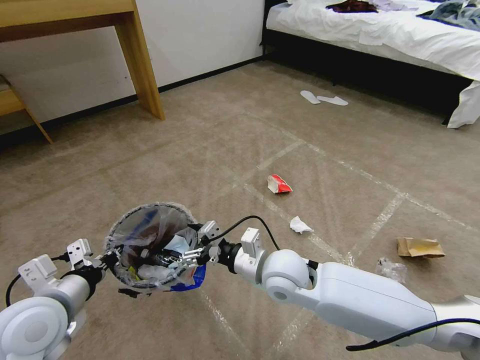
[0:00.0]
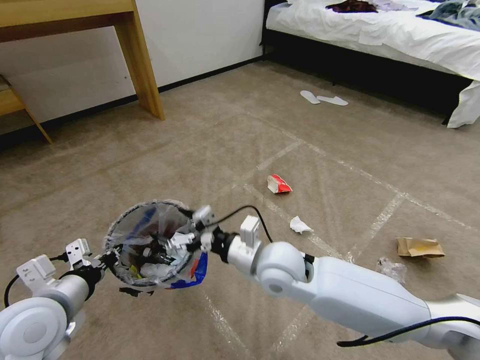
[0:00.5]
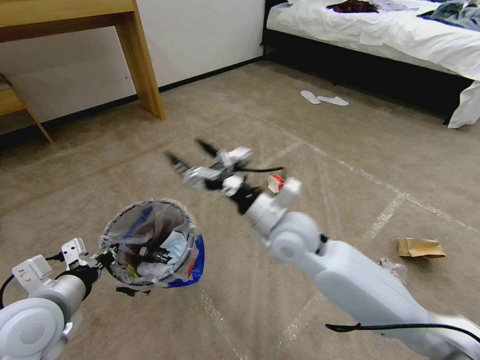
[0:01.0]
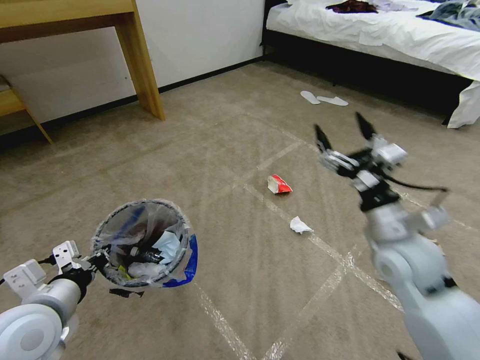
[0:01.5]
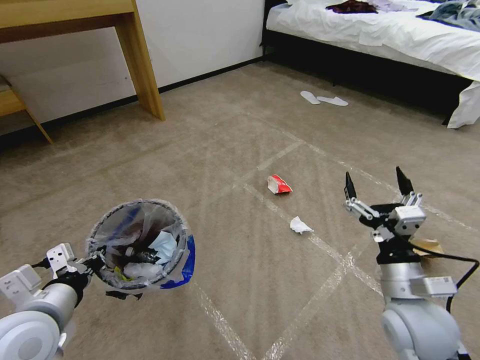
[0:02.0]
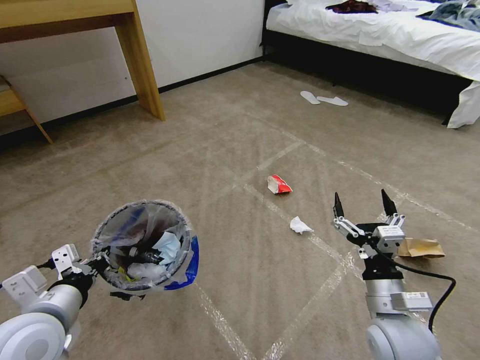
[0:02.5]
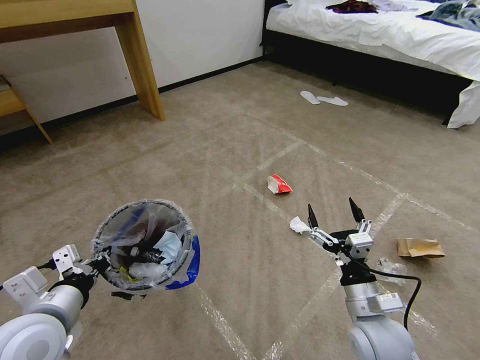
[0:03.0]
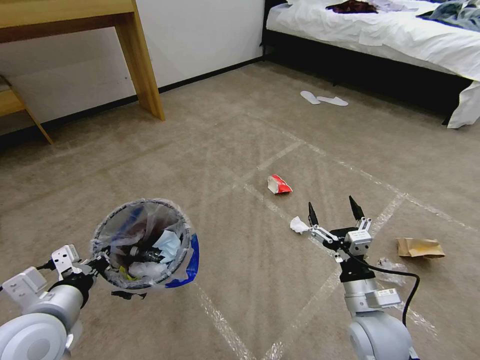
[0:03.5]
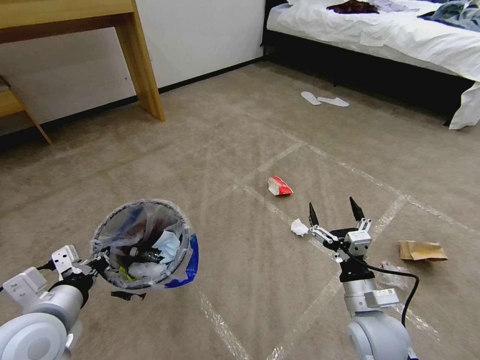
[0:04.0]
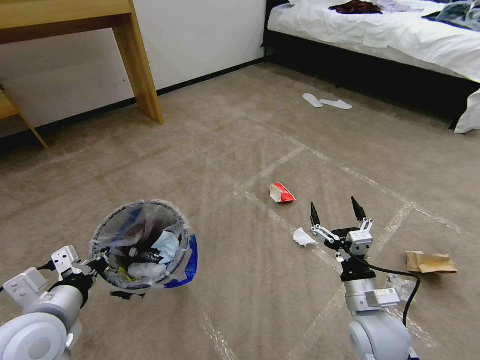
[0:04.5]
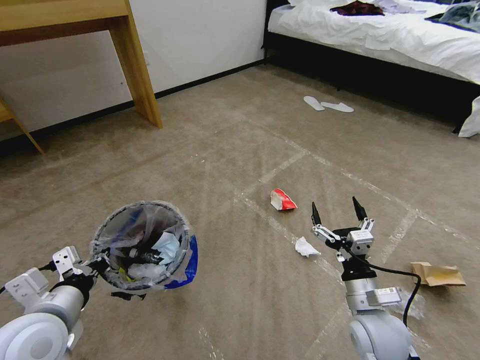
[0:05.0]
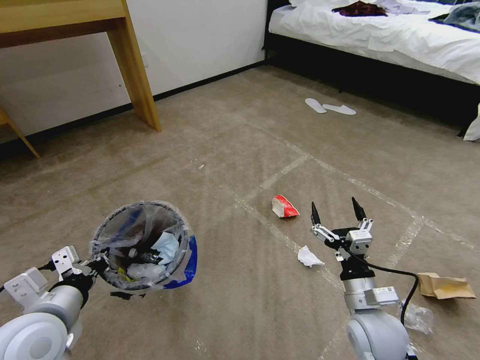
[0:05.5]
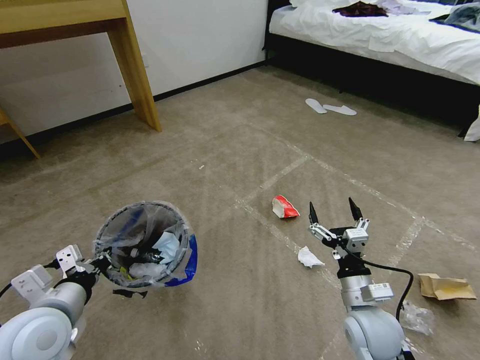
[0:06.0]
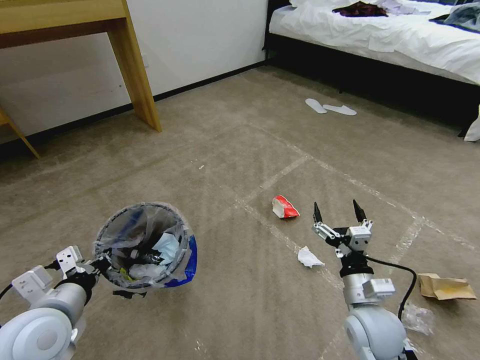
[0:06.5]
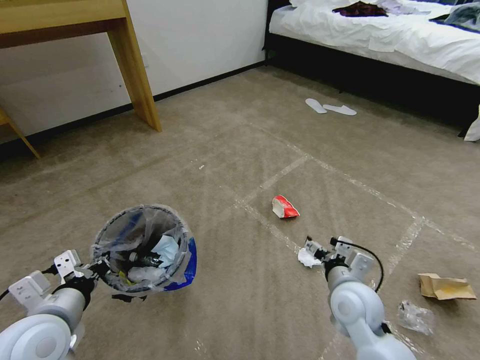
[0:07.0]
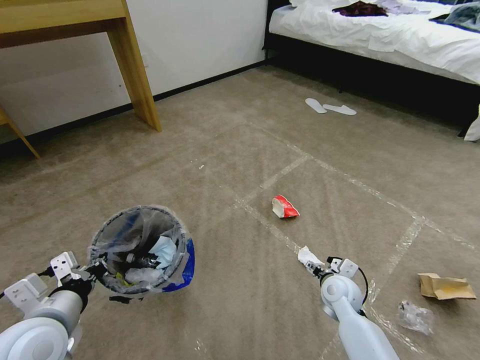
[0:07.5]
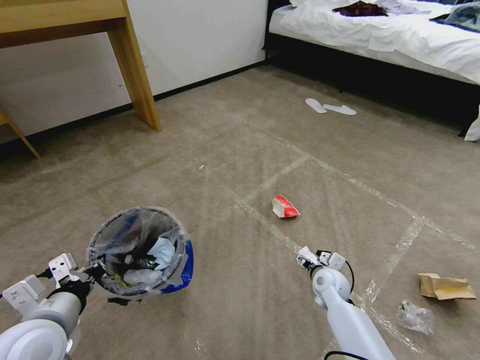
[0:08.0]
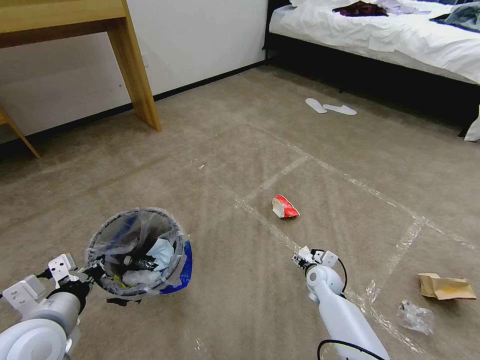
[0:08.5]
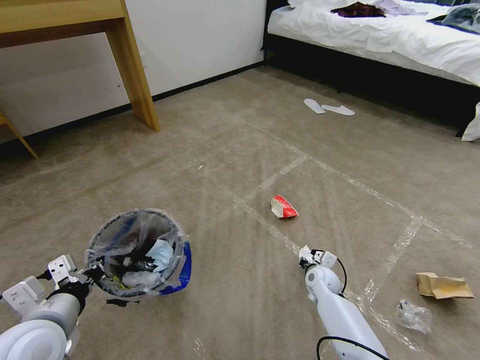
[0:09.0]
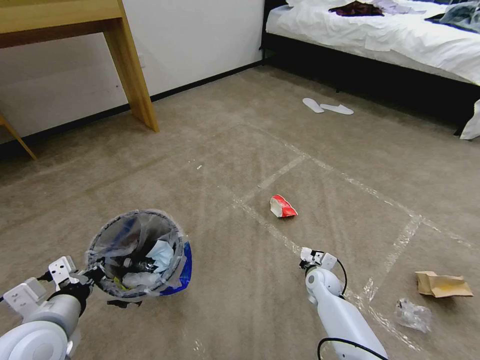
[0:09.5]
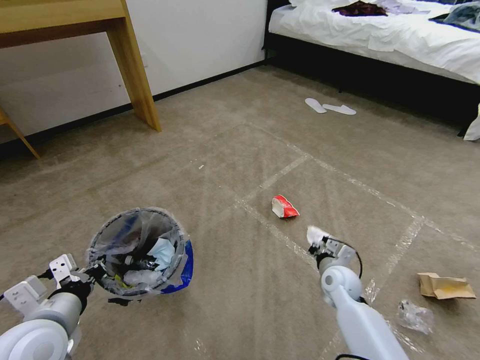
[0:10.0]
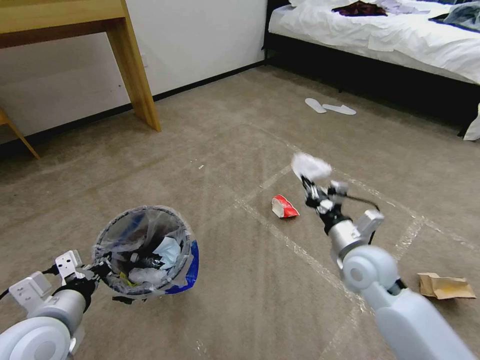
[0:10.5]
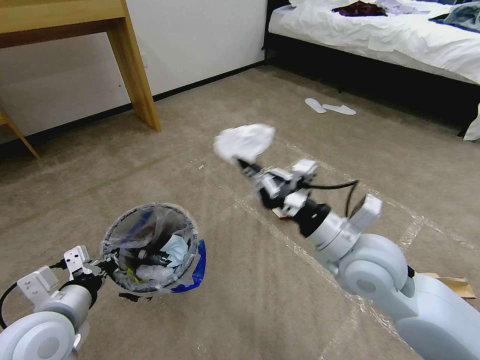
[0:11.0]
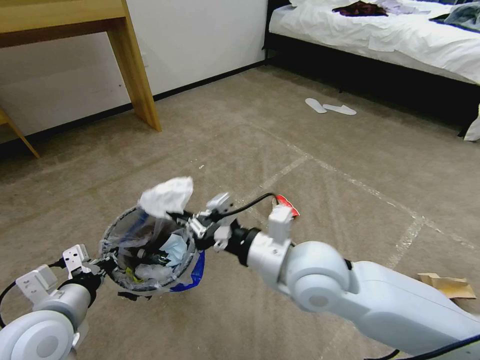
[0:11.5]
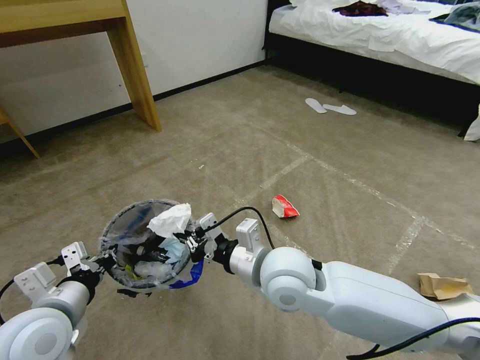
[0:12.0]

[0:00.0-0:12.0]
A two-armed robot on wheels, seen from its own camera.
Task of the whole recording: Pick up the trash bin and place the garbage on the floor into it.
0:00.0 to 0:02.0: The right gripper shifts roughly 25 cm to the right and backward.
0:02.0 to 0:04.0: The right gripper is displaced downward by about 10 cm.
0:06.0 to 0:08.0: The right gripper travels forward and downward by some 20 cm.
0:08.0 to 0:10.0: The right gripper closes up.
0:10.0 to 0:12.0: The right gripper heads upward and to the left, covering some 30 cm.

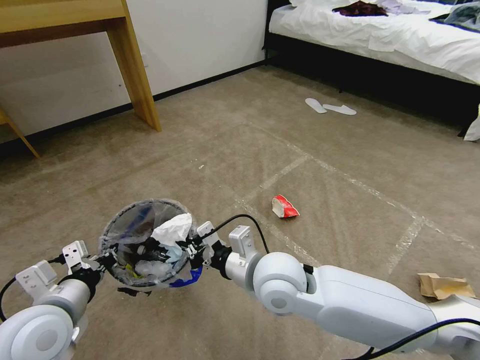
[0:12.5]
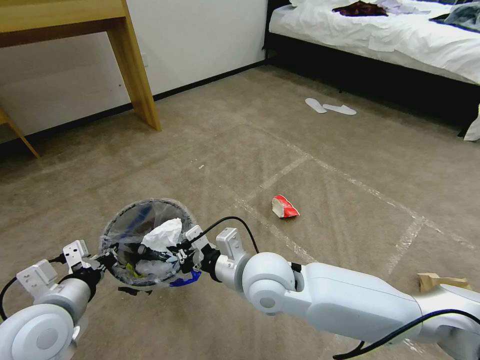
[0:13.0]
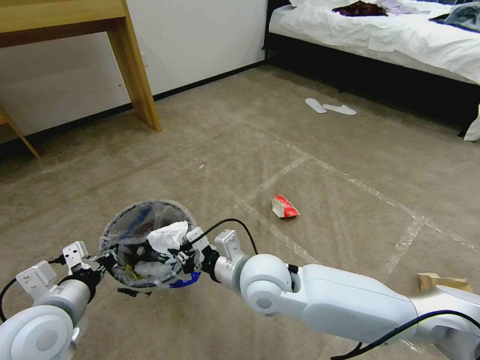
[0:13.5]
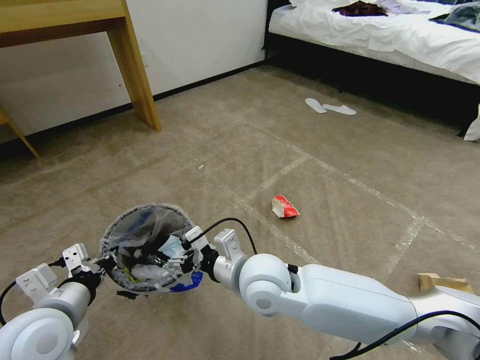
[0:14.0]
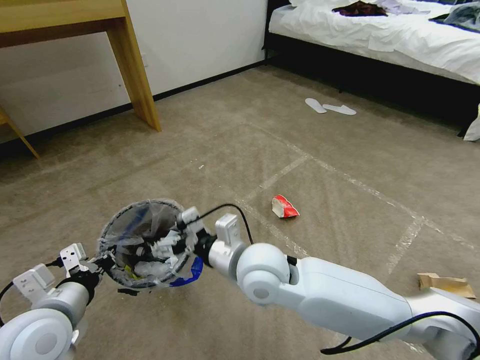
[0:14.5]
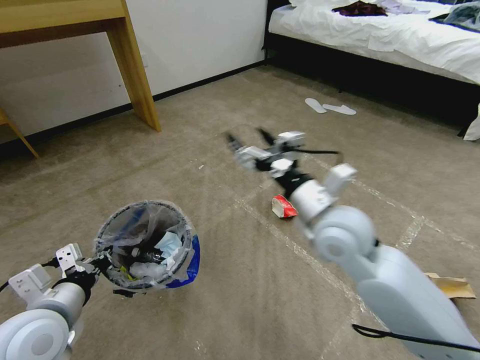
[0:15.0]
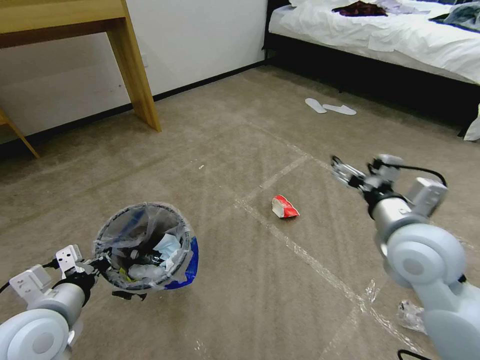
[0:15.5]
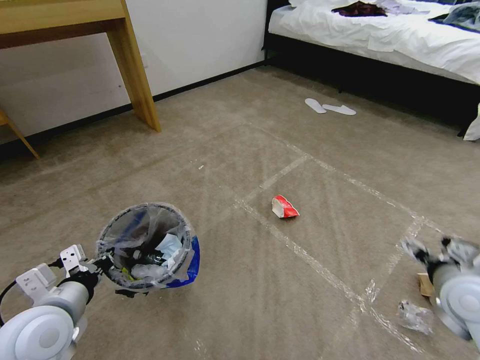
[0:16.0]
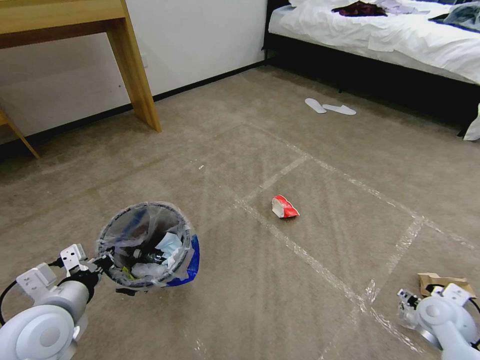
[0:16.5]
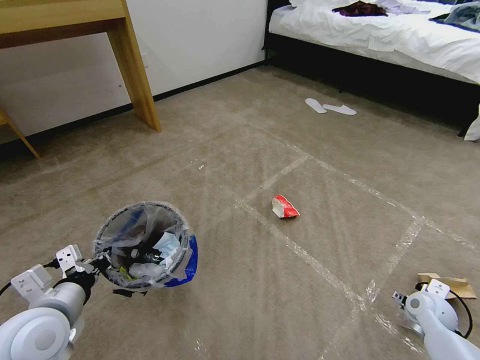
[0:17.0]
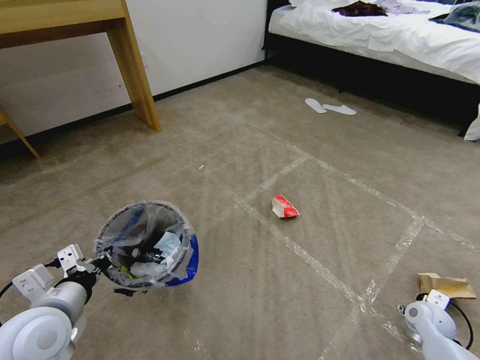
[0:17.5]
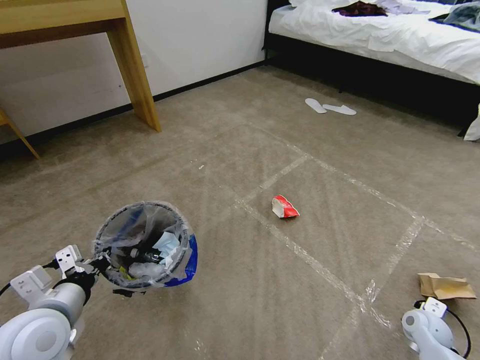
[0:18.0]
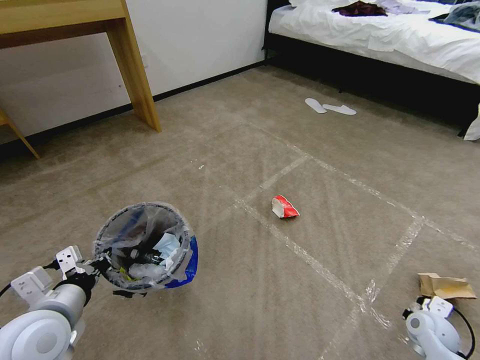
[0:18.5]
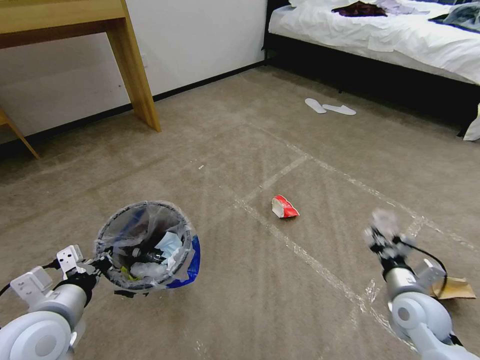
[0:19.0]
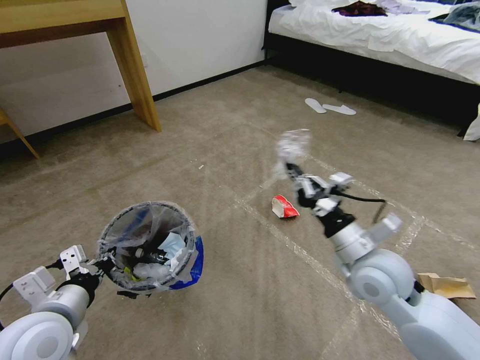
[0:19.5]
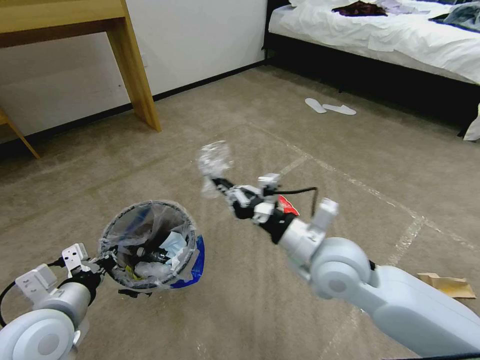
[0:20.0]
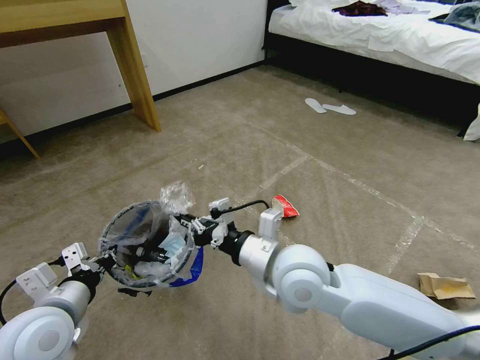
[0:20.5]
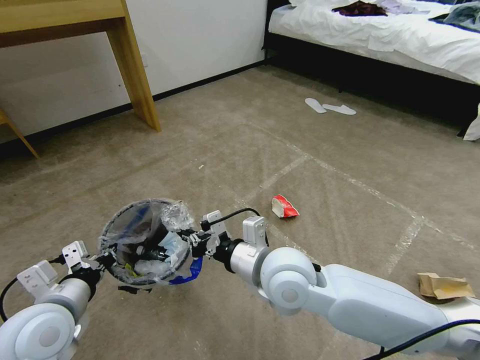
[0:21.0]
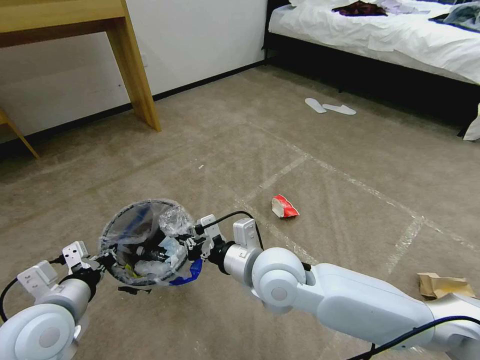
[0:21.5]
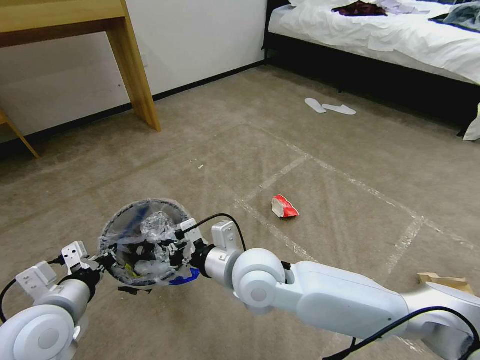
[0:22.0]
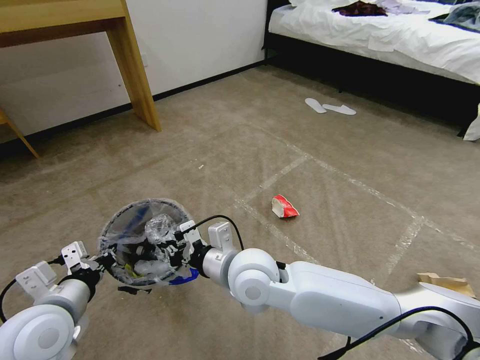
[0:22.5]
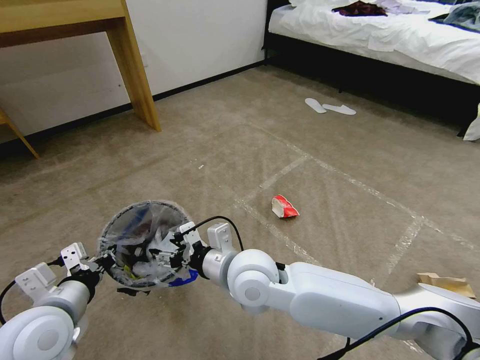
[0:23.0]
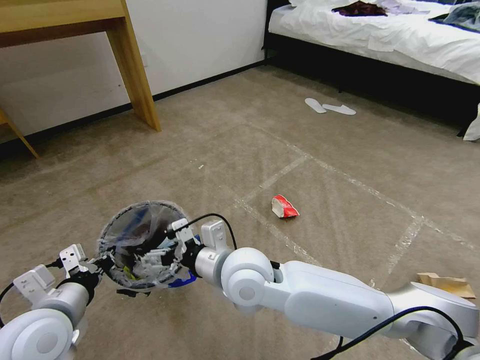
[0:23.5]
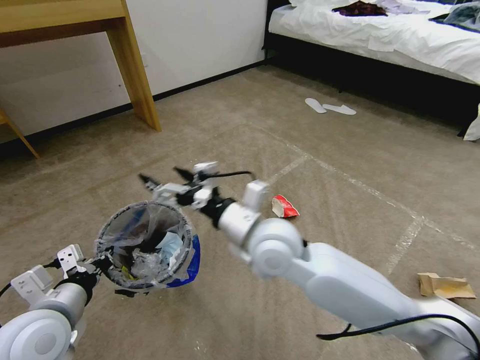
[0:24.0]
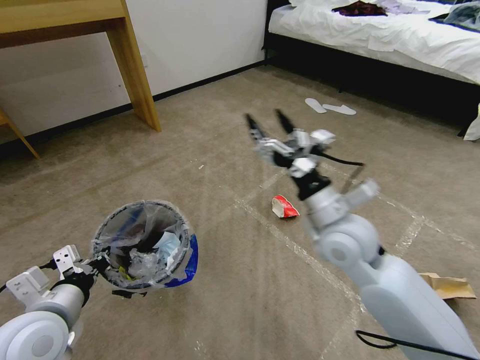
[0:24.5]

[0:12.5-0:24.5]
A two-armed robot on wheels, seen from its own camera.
Task of the whole recording: Pick up the trash bin and place the garbage on the floor into it.
0:12.5 to 0:14.5: The right gripper opens its fingers.
0:14.5 to 0:16.5: The right gripper moves to the right, some 40 cm.
0:16.5 to 0:18.5: The right gripper travels downward by approximately 10 cm, and closes up.
0:18.5 to 0:20.5: The right gripper shifts roughly 50 cm to the left and upward.
0:20.5 to 0:22.5: The right gripper is displaced to the left by roughly 10 cm.
0:22.5 to 0:24.5: The right gripper shifts approximately 15 cm to the right, and opens.

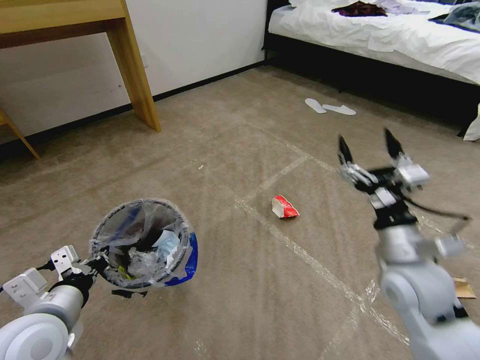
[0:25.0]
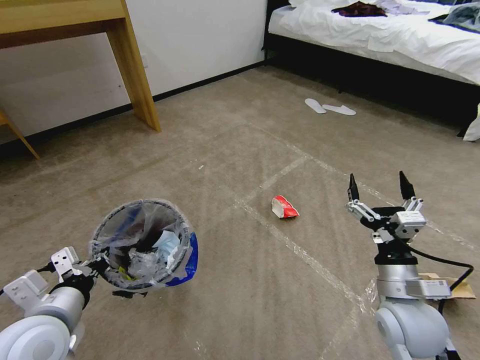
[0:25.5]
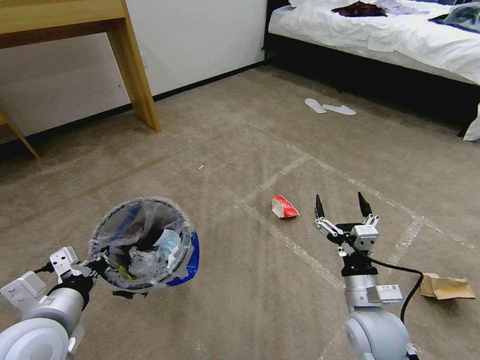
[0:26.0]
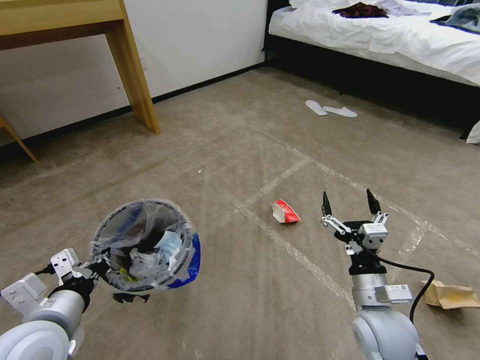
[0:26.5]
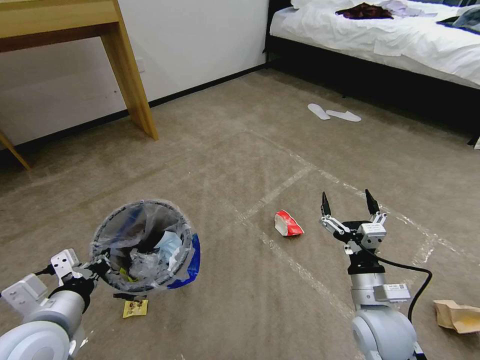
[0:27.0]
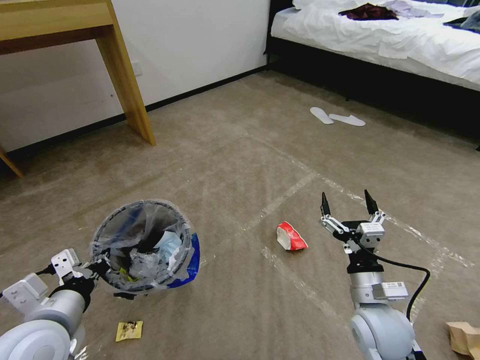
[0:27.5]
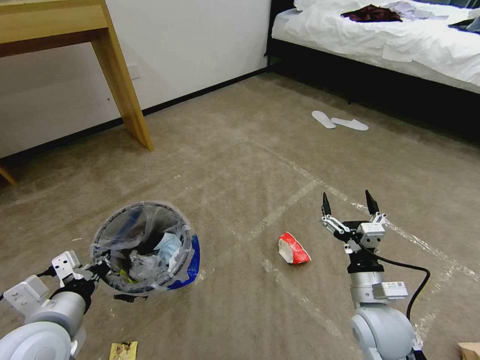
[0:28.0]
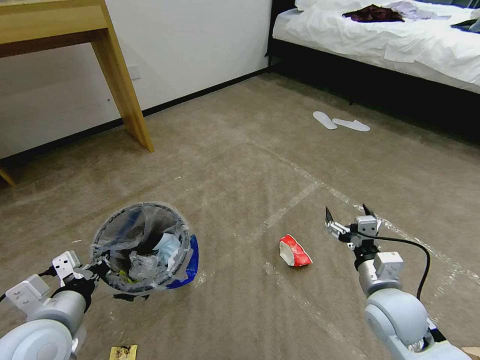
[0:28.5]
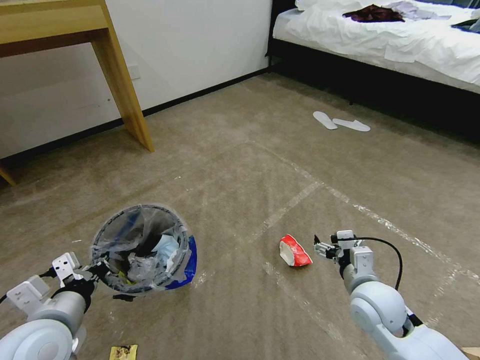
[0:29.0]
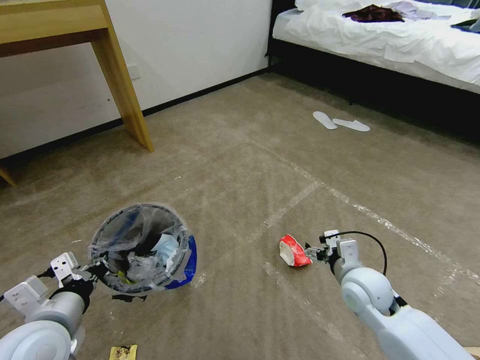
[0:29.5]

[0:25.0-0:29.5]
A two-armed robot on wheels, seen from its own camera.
Task of the whole recording: Pick up the trash bin and place the garbage on the floor into it.
0:25.0 to 0:27.0: The right gripper shifts about 10 cm downward.
0:27.0 to 0:29.5: The right gripper is displaced forward by approximately 10 cm.
